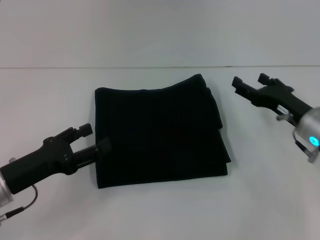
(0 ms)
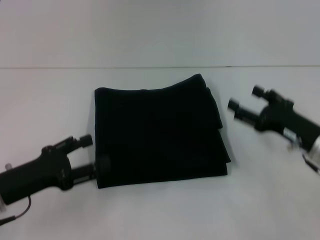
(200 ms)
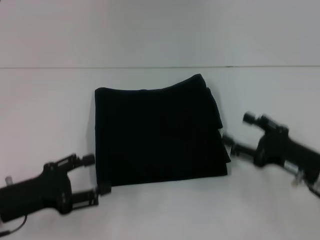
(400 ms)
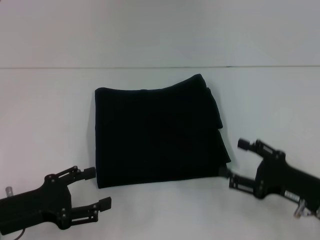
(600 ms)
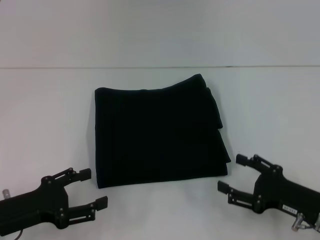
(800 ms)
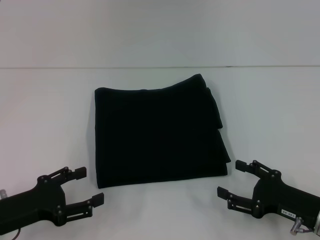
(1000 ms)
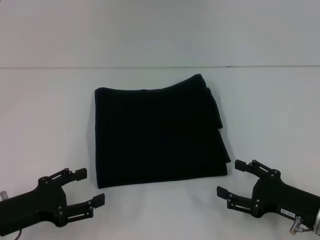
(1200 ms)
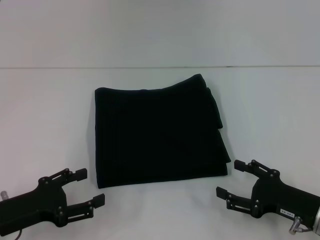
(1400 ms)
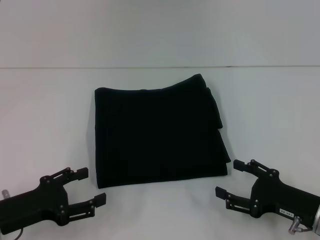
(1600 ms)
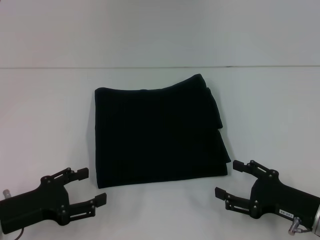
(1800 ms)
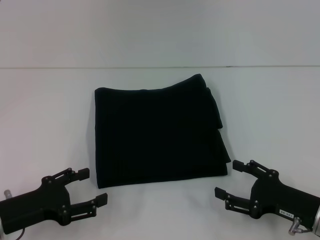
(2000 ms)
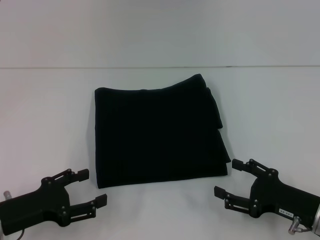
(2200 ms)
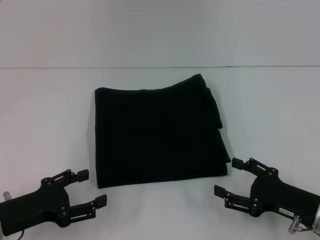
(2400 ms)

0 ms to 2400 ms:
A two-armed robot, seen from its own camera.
0 ms to 1200 ms: The right gripper shifts some 10 cm backward.
1200 ms to 2400 ms: Both grippers stay put.

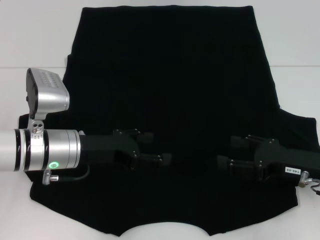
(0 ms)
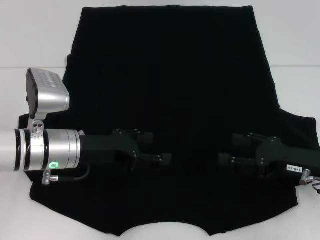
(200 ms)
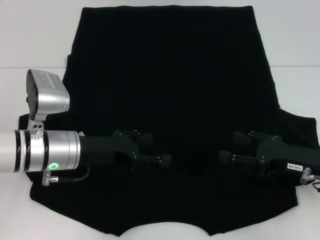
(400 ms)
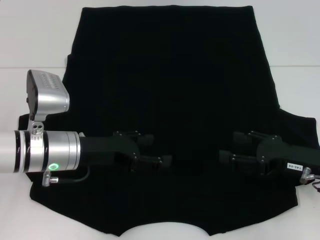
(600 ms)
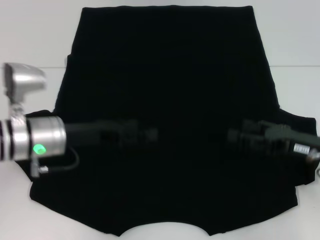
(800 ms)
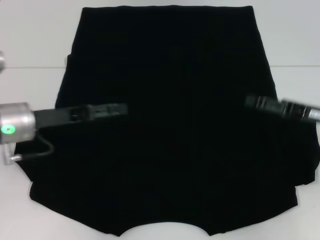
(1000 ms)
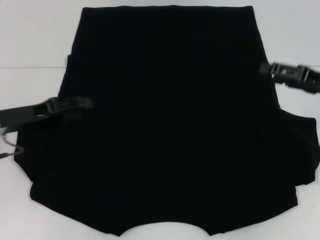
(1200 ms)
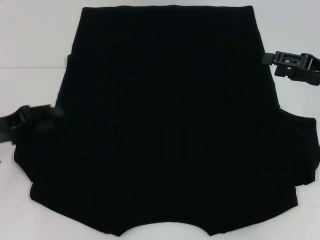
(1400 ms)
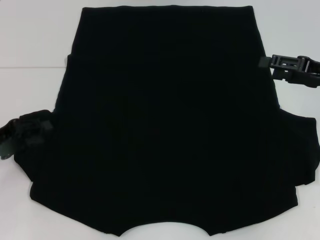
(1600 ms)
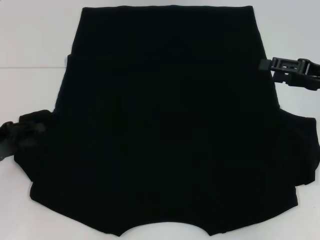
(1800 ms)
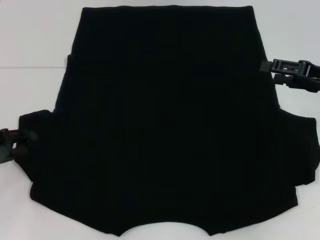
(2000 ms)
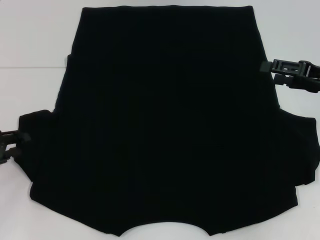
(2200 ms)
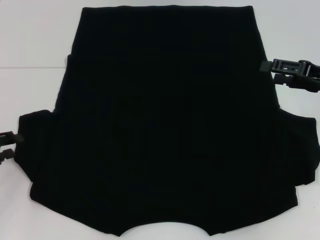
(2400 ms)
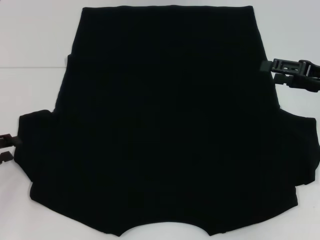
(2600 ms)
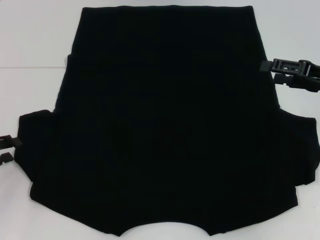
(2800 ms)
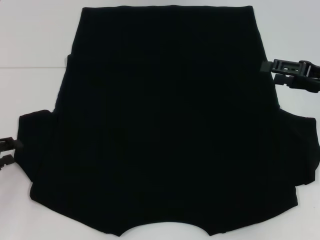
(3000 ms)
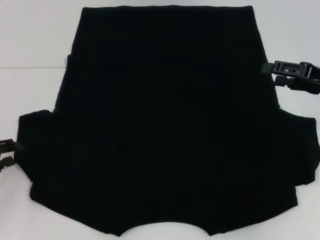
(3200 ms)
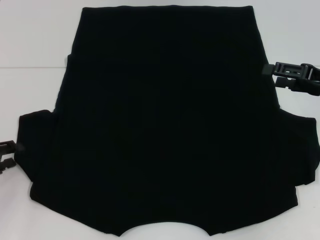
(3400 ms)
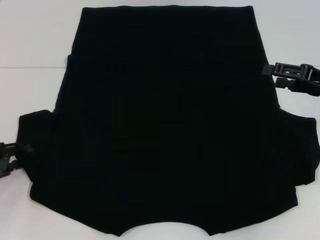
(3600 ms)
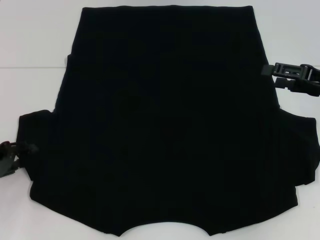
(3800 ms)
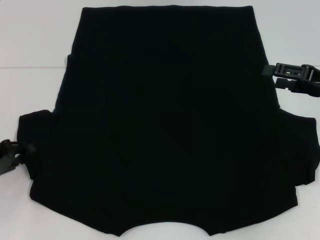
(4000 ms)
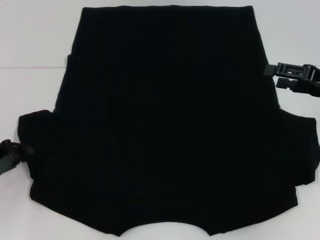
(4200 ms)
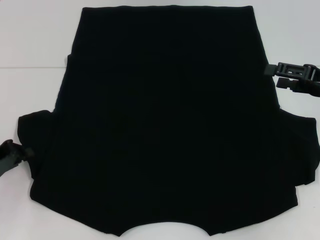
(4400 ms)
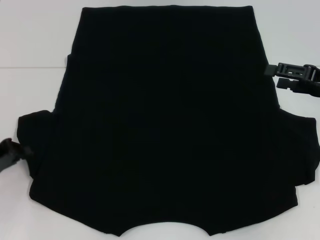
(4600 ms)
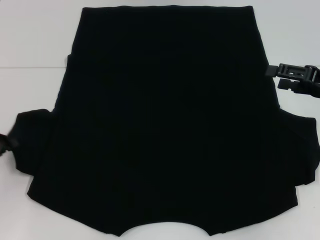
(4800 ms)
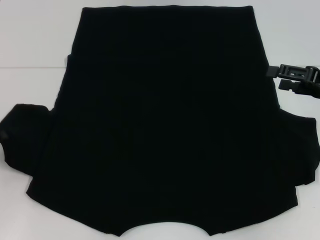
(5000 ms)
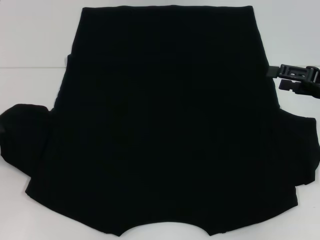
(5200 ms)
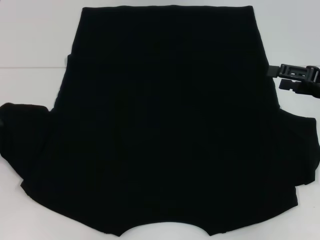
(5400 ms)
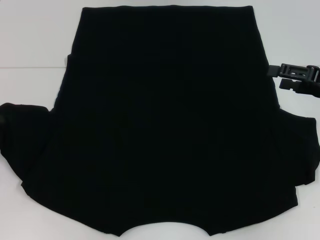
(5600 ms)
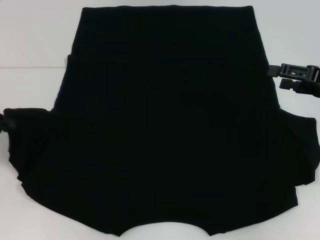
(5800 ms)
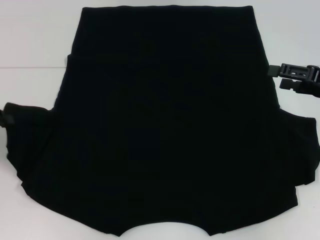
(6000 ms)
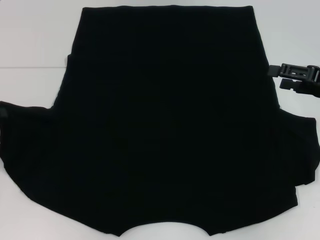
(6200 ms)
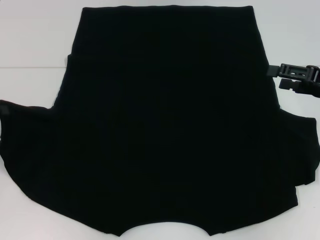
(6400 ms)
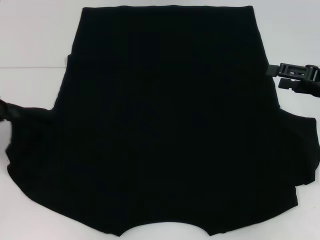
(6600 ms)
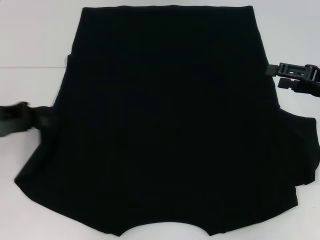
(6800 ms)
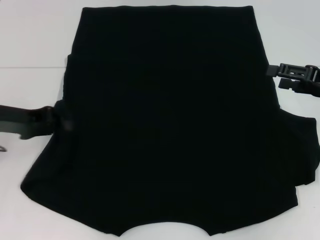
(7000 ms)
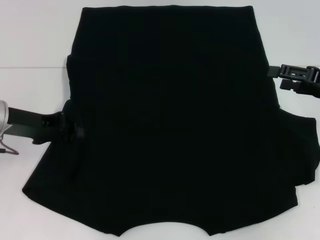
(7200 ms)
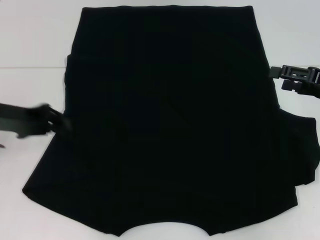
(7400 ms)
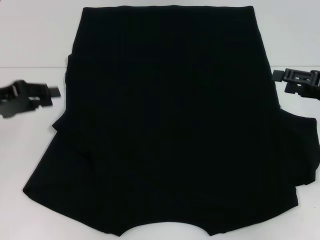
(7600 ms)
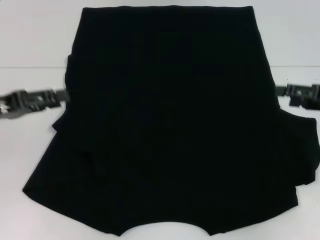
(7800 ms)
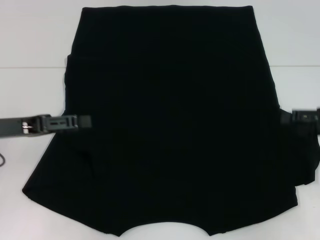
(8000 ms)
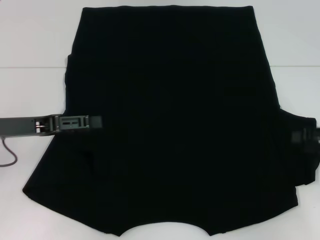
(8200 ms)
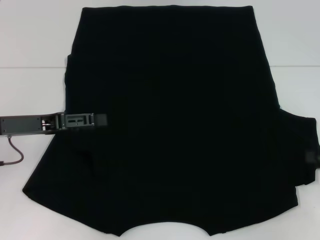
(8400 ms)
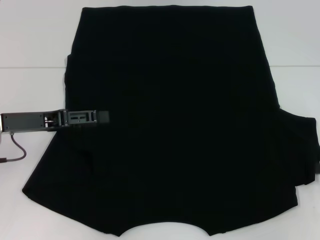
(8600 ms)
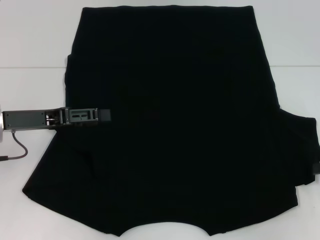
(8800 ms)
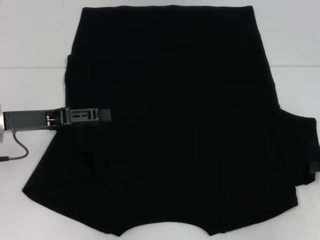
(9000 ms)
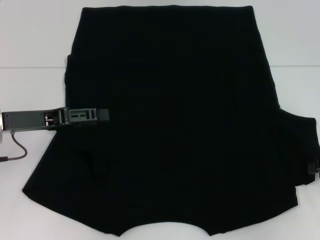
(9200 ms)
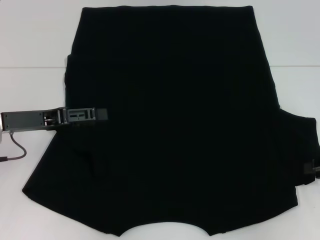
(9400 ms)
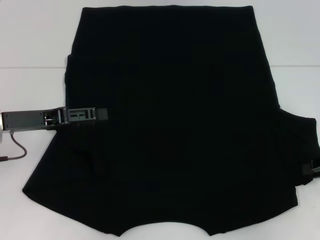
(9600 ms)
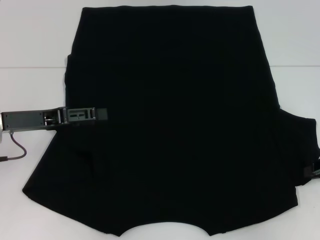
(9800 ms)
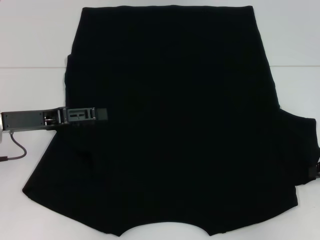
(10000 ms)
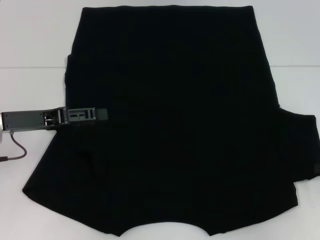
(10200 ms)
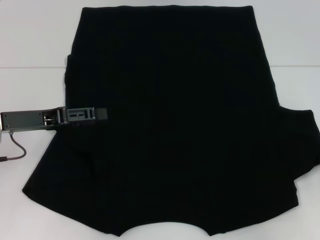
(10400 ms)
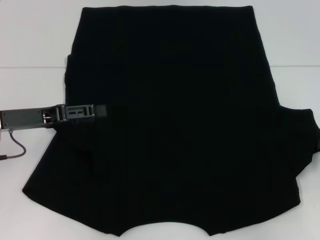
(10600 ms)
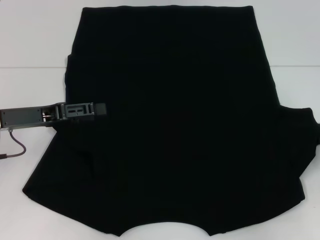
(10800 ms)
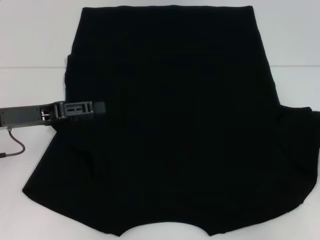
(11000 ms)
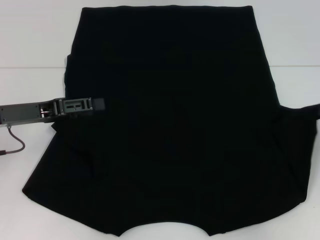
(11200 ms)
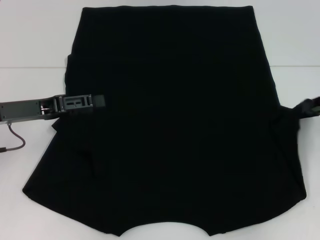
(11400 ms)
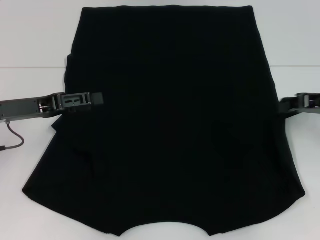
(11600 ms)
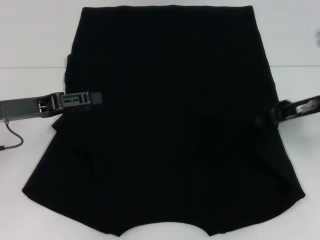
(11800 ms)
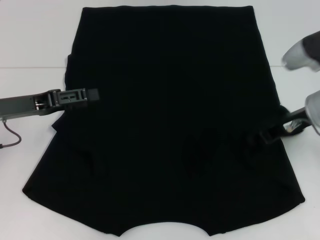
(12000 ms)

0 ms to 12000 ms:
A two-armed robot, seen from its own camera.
Step, 0 ms to 7200 ms: Fold the bottom left sleeve with your left hand.
0 ms to 1600 ms: The left gripper heads to the left, covering about 15 cm, and closes its fingers. The right gripper shifts some 10 cm upward and forward.
1600 ms to 3000 ms: The grippers stay close to where they were, moving slightly.
3000 ms to 4400 ms: The left gripper closes up.
4400 ms to 6000 ms: The left gripper travels upward by roughly 10 cm.
7600 ms to 9000 ms: The right gripper travels backward by roughly 5 cm. The left gripper heads to the right, covering about 5 cm, and opens its fingers.
9000 ms to 10400 ms: The right gripper closes up.
10400 ms to 12000 ms: The right gripper travels to the left and forward by roughly 15 cm.

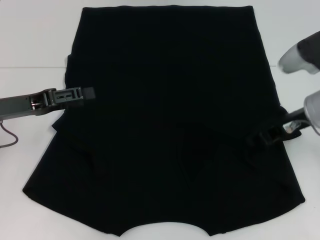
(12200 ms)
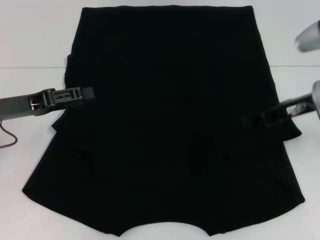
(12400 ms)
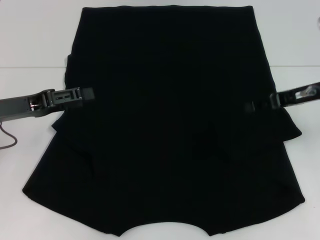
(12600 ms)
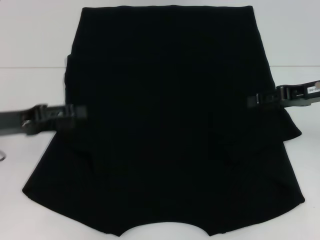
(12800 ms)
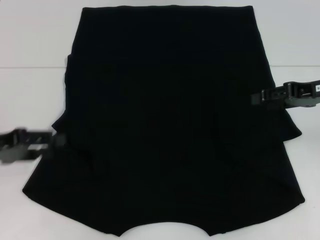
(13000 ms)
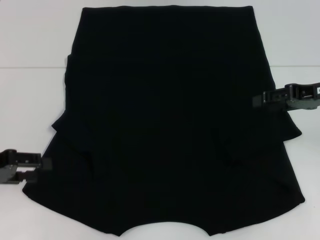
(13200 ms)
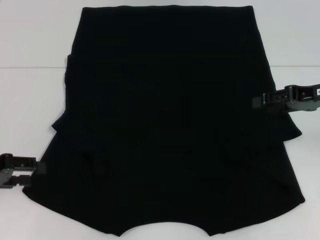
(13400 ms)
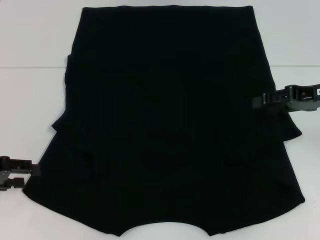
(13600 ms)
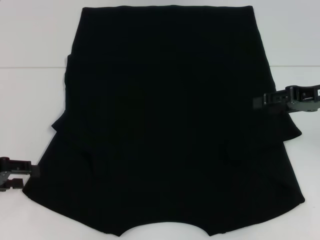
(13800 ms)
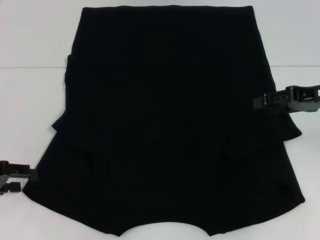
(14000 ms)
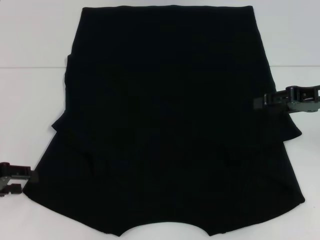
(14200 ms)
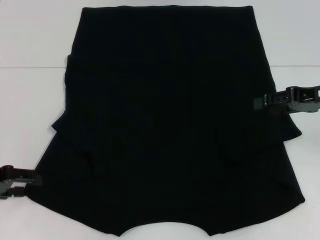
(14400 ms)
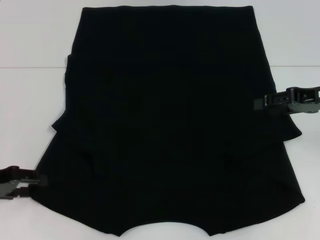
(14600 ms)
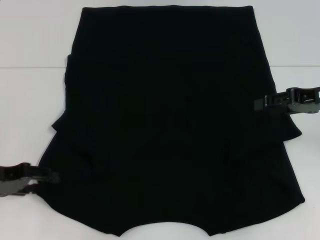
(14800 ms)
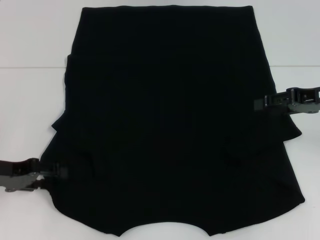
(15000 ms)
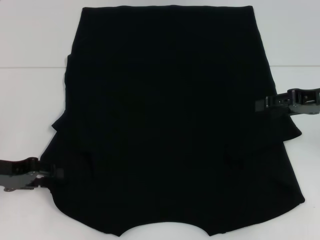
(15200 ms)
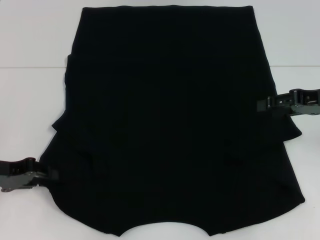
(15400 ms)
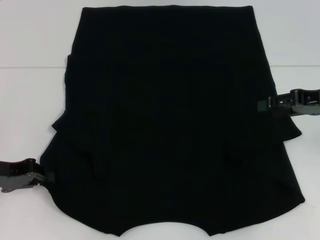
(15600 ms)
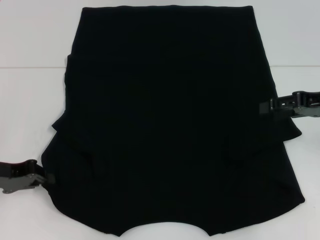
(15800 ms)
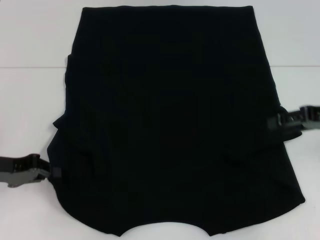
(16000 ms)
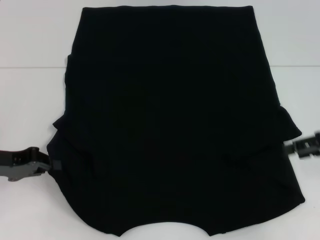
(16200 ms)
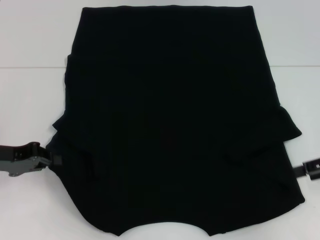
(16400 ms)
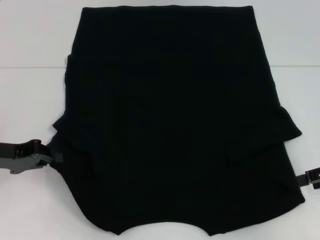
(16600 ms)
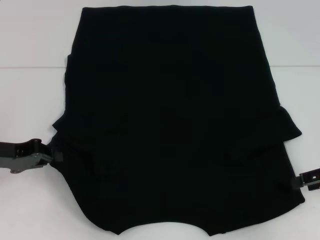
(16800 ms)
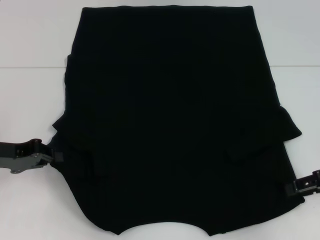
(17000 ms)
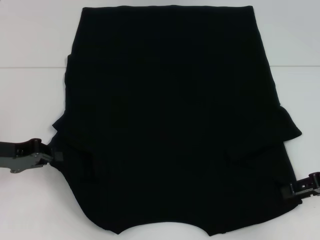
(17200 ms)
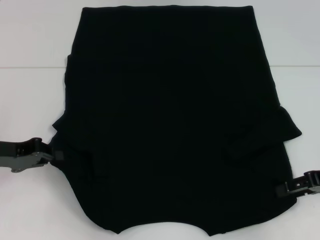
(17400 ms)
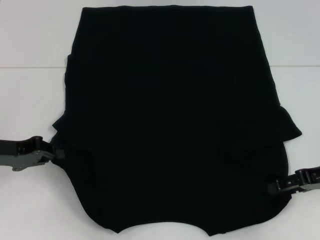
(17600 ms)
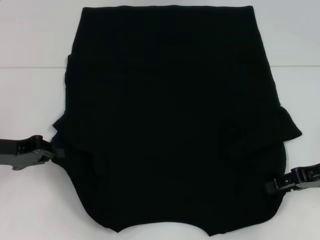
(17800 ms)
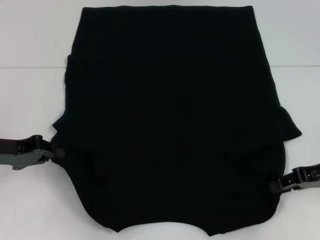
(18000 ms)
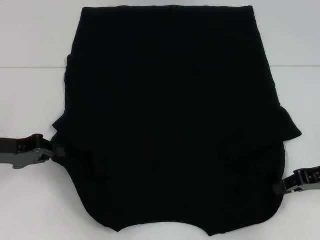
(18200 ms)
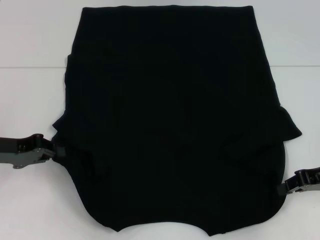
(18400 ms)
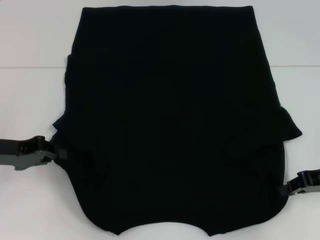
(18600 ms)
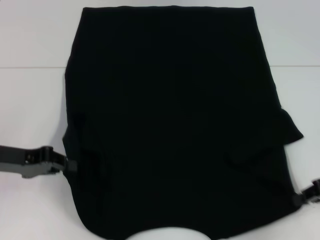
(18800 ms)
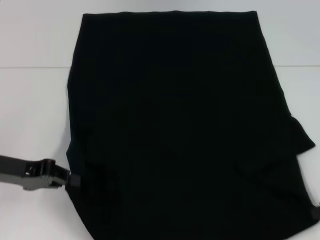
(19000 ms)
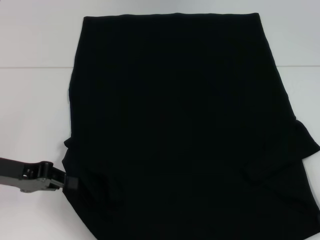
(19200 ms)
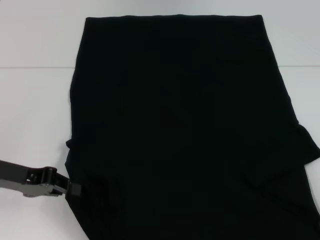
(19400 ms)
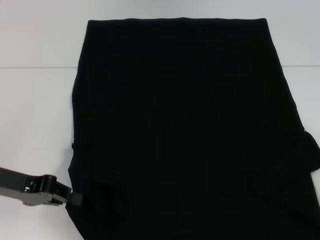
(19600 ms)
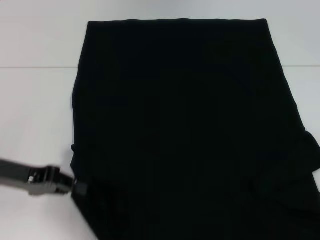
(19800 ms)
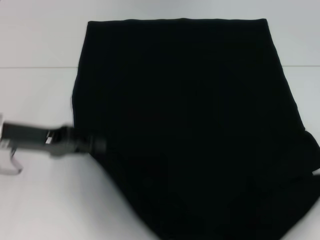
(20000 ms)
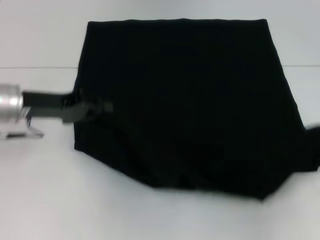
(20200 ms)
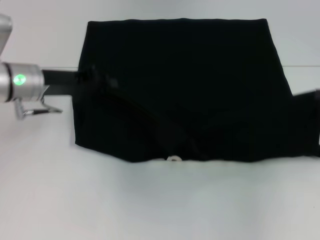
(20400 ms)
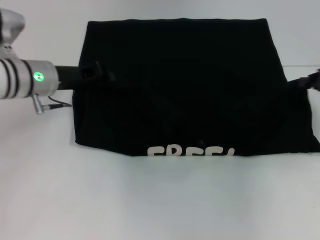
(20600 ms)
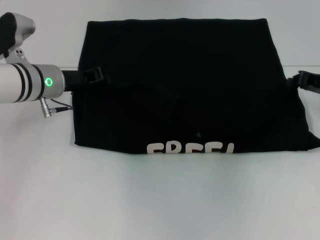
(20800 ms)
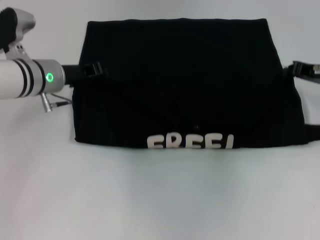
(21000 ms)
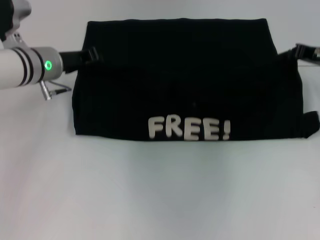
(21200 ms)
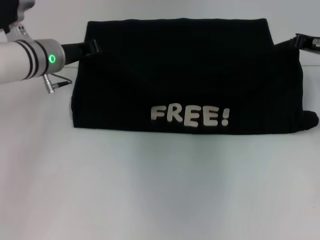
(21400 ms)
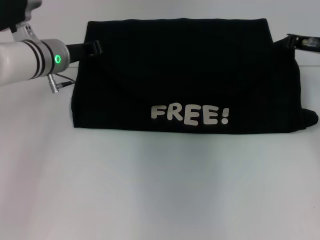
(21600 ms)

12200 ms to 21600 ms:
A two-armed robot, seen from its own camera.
Step, 12800 ms to 16000 ms: Grab the bottom left corner with your left hand.
Step, 16200 ms to 18600 ms: Grab the bottom right corner with your right hand.
12200 ms to 13800 ms: The right gripper is displaced to the right by approximately 5 cm, and opens its fingers. Meanwhile the left gripper heads to the left, covering about 5 cm.
13800 ms to 15400 ms: There are only small adjustments of the grippers.
15400 ms to 17000 ms: The left gripper closes its fingers, while the right gripper shifts approximately 10 cm backward and downward.
17000 ms to 18400 ms: There are only small adjustments of the grippers.
18400 ms to 20000 ms: The right gripper travels to the right by approximately 5 cm. Meanwhile the left gripper moves roughly 5 cm.
20000 ms to 21600 ms: The right gripper is displaced forward and to the left by some 20 cm. Meanwhile the left gripper goes approximately 15 cm forward and to the right.
